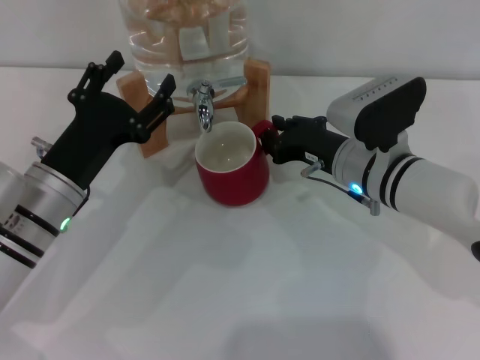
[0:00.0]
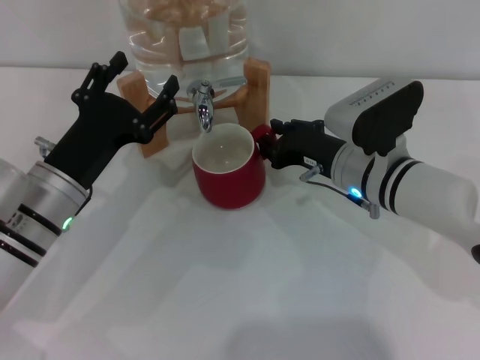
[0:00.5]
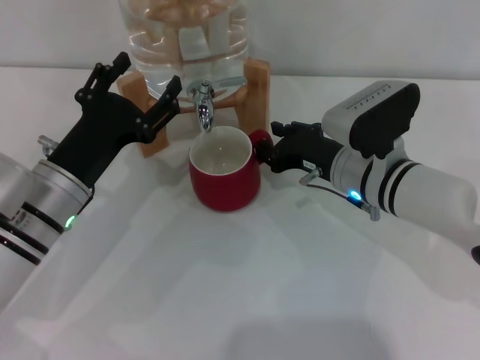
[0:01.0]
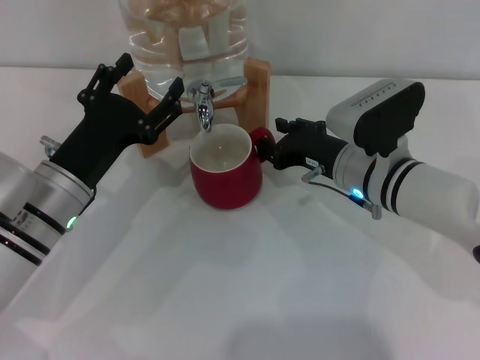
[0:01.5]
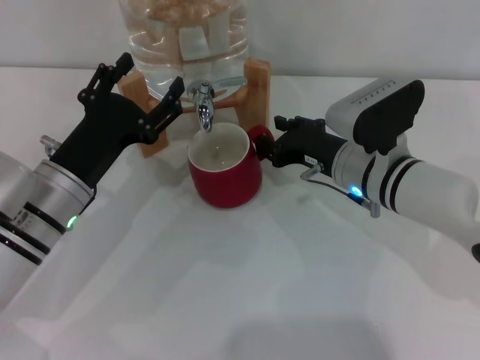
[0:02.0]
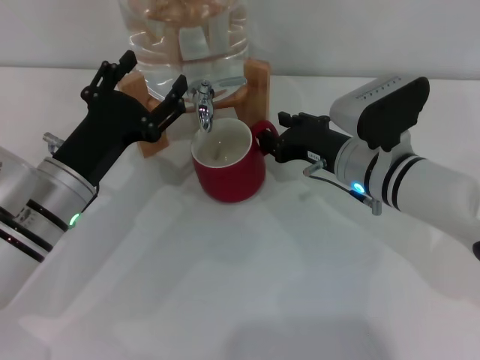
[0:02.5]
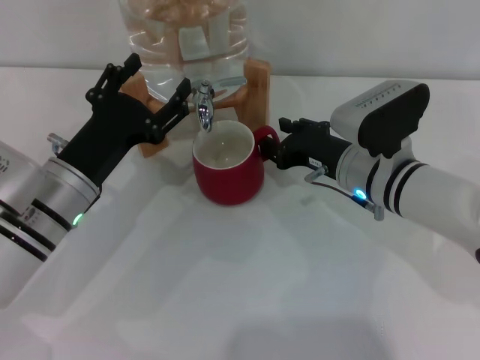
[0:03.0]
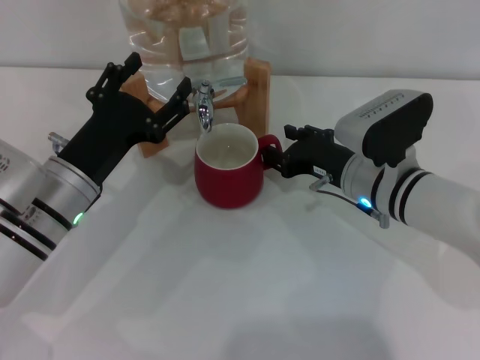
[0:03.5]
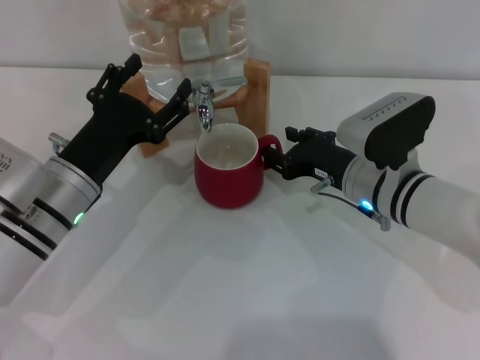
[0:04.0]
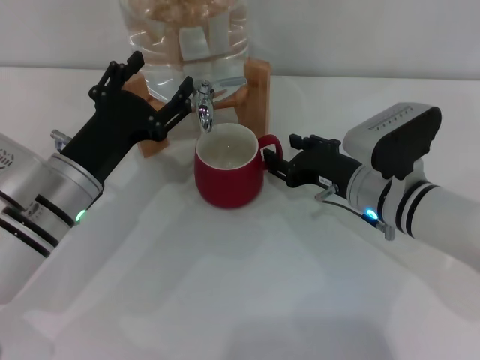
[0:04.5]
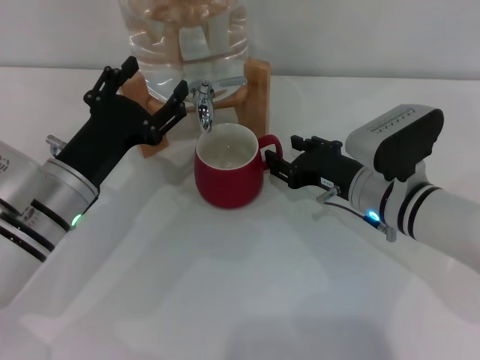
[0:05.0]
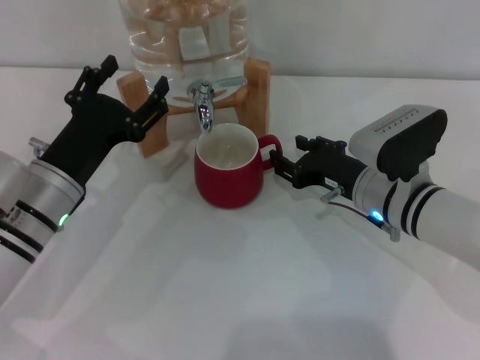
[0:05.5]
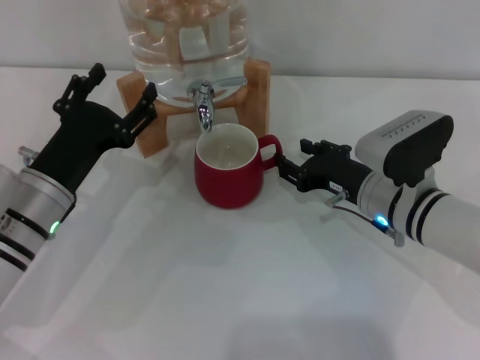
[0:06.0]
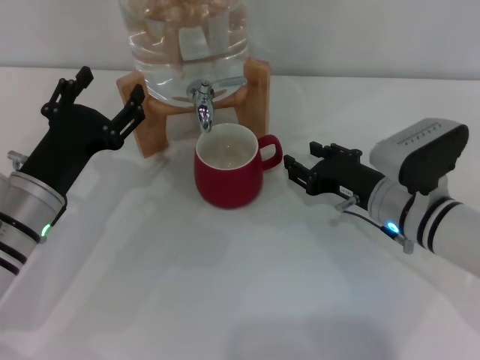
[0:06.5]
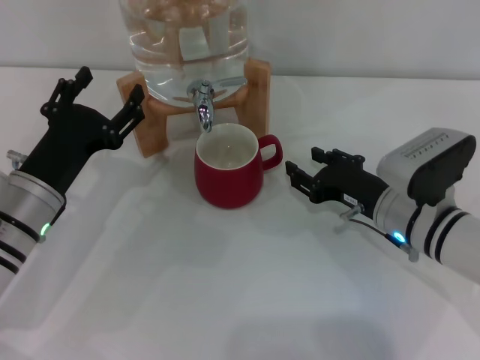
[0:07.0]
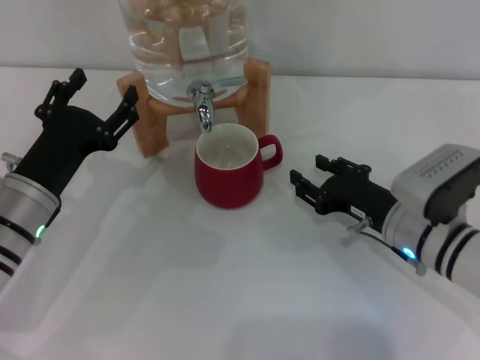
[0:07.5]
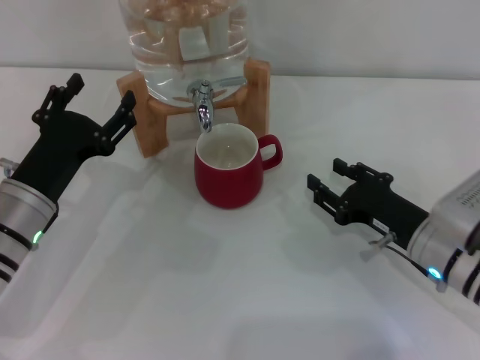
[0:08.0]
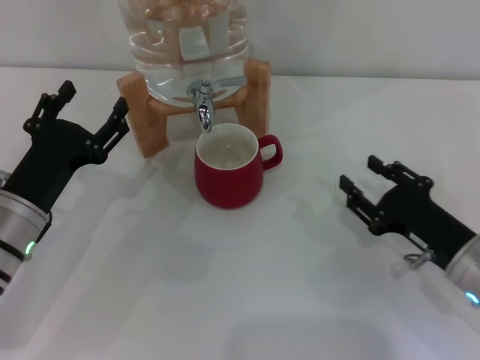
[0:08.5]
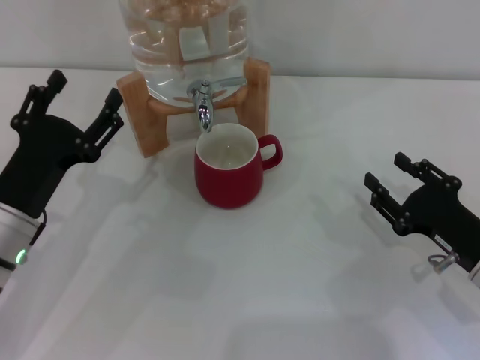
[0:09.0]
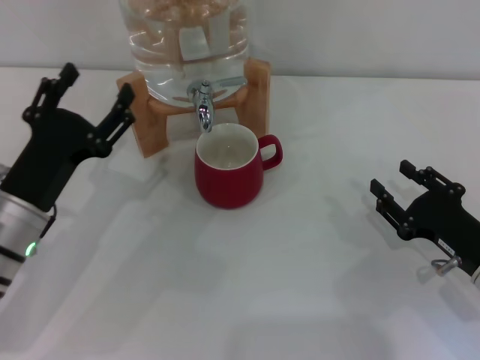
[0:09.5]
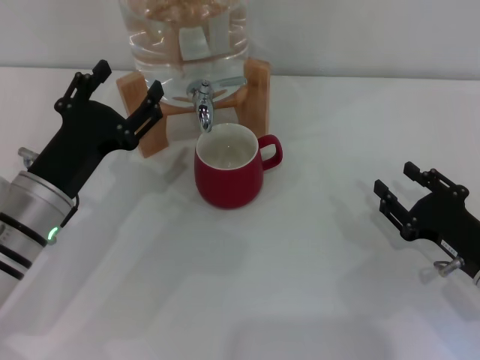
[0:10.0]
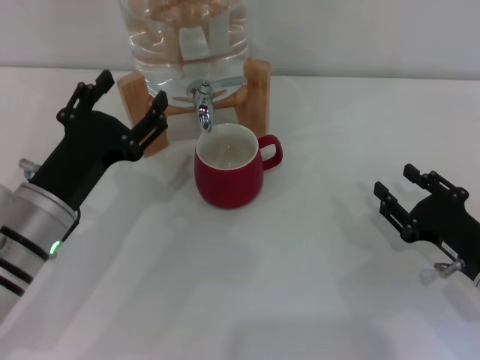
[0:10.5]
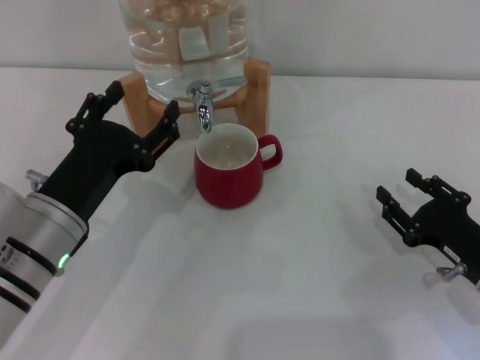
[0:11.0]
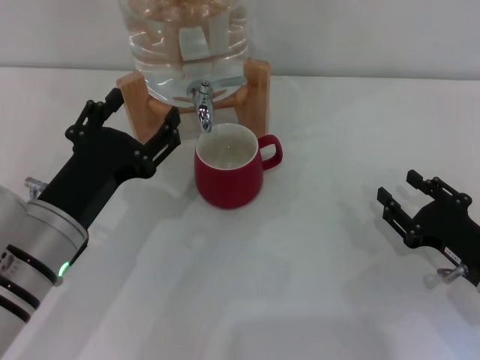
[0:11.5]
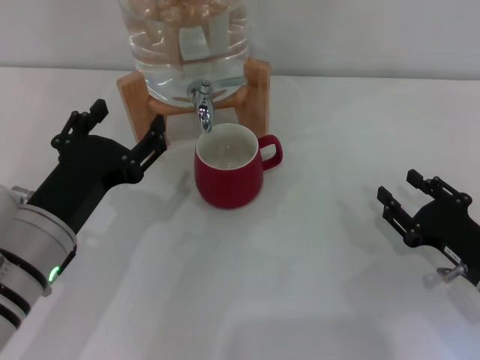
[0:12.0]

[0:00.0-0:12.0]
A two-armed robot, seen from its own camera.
Task of the whole recording: the right gripper pick up the red cup and place it horizontally under the faucet, the left gripper turn on the faucet to fill the cup, and then turn off the faucet.
Step, 0:00.0 to 0:07.0: Move the cup beneath the water dispenser nozzle with the right gripper.
0:00.0 to 0:02.0: Neither gripper changes place.
0:02.0 to 0:06.0: The grippers stay close to where they were, moving slightly.
0:06.0 to 0:08.0: The right gripper heads backward, covering roughly 5 cm.
0:08.0 to 0:10.0: The right gripper moves to the right, approximately 5 cm.
0:10.0 to 0:12.0: The left gripper goes some 5 cm backward.

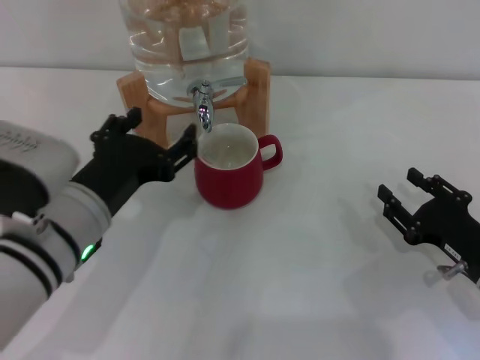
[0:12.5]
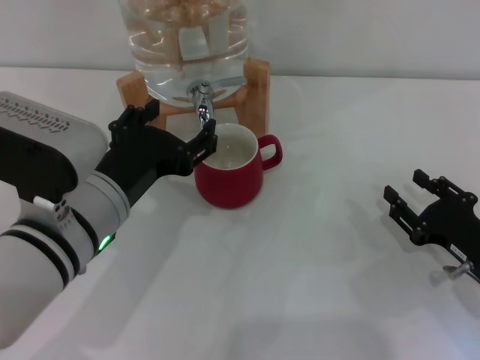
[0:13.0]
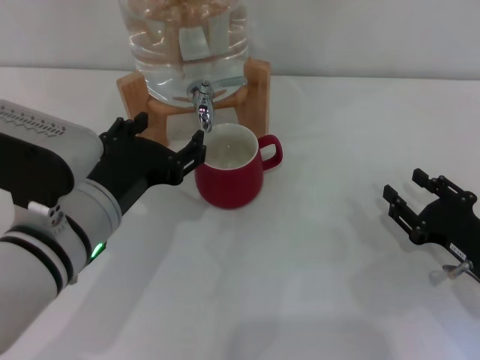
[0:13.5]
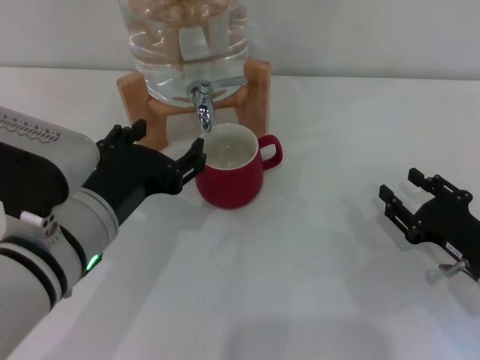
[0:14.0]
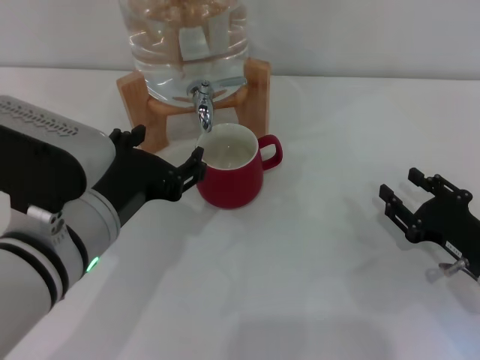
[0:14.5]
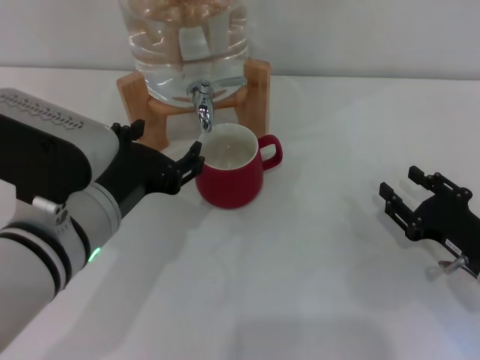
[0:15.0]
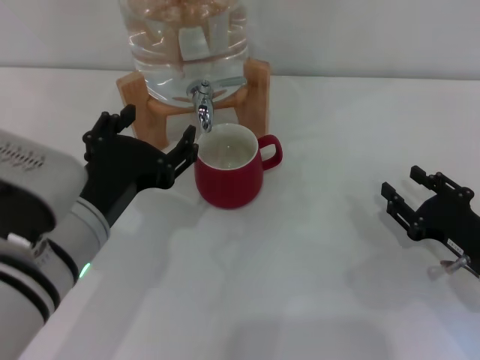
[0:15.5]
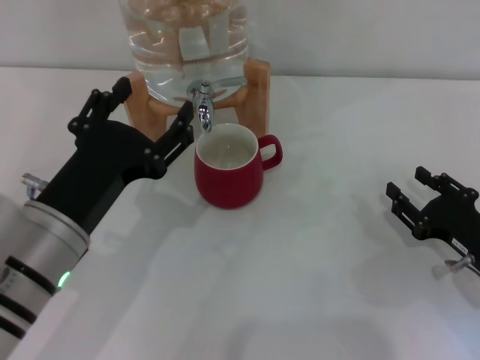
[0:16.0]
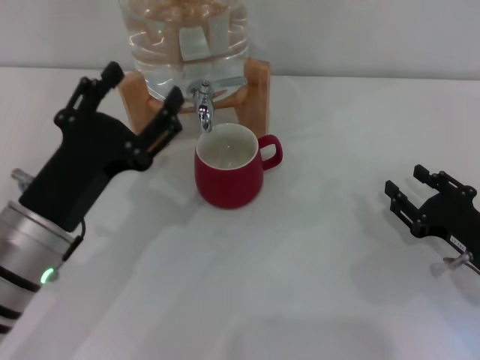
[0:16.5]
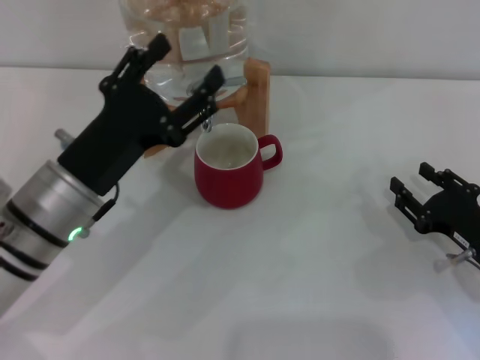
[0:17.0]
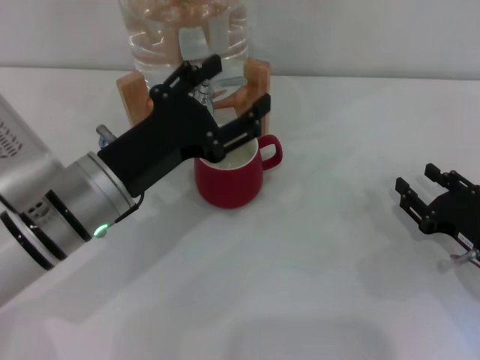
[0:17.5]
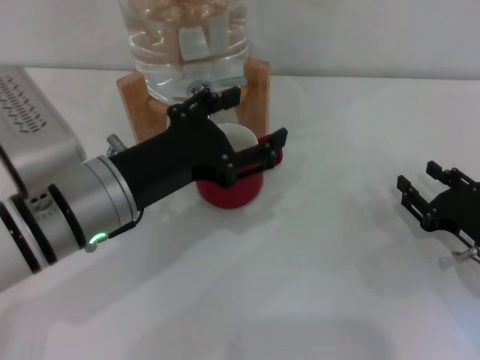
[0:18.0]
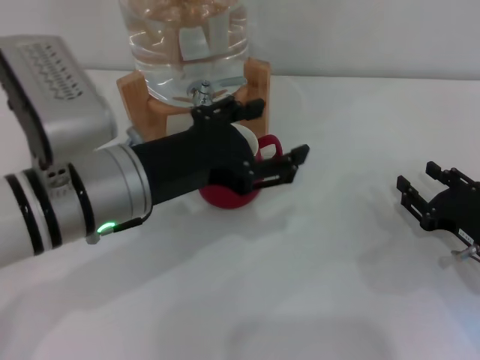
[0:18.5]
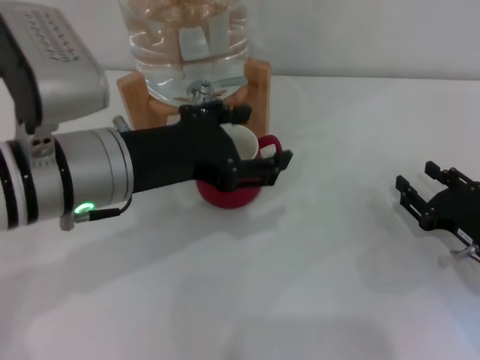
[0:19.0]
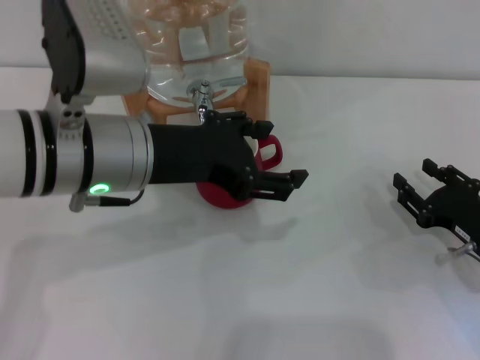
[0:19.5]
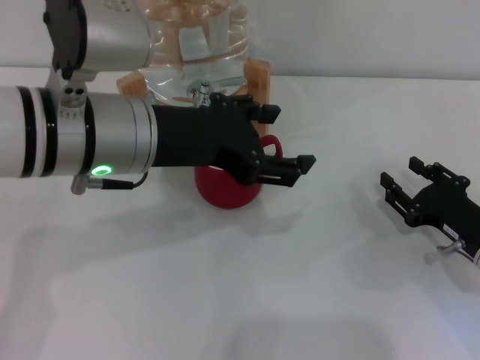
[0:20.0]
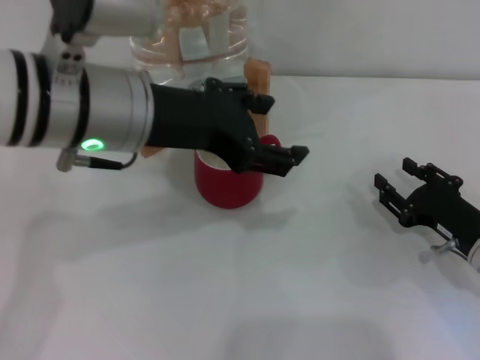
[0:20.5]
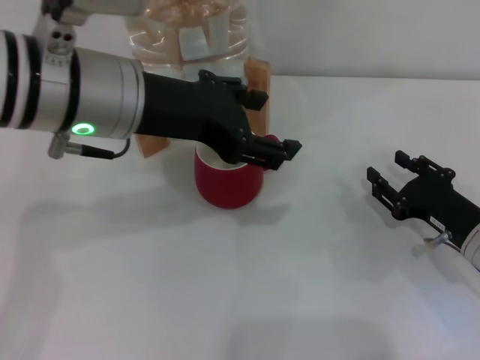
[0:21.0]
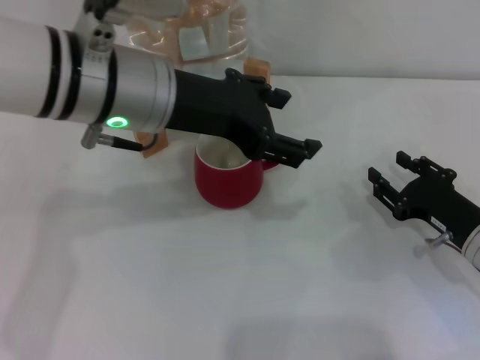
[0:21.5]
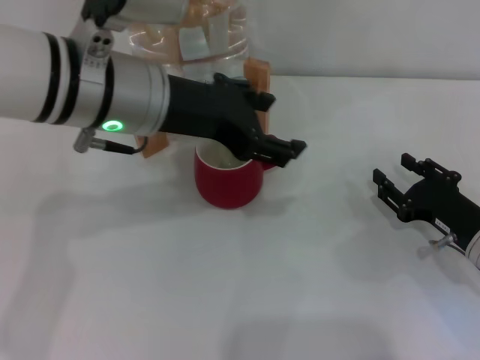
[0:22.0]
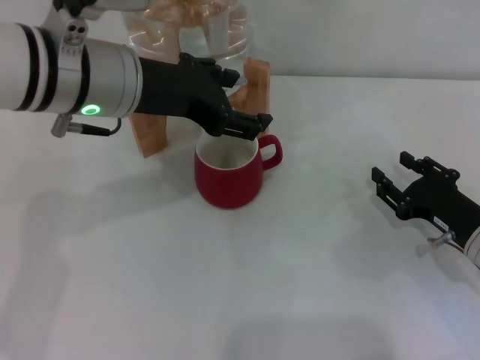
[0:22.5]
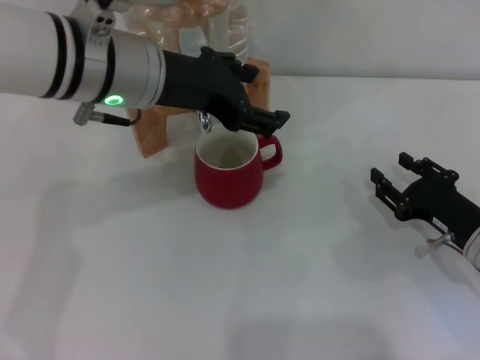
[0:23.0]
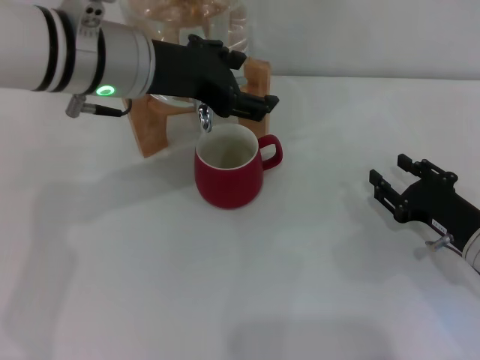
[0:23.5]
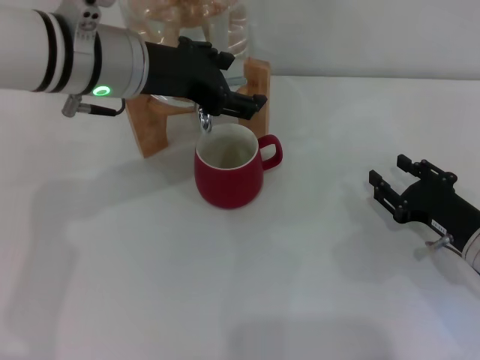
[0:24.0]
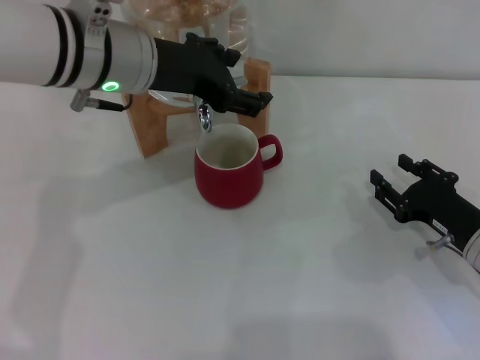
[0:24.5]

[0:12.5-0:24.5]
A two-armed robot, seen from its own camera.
Task of the whole recording: the right gripper pick up the red cup and place it horizontally under the faucet, the left gripper turn on the faucet to fill the cup, and then turn off the faucet.
0:12.5 to 0:14.5: The grippers stay close to where they were, moving slightly.
0:14.5 to 0:16.5: The left gripper ends up roughly 5 cm from where it was.
0:16.5 to 0:18.5: The left gripper heads upward and to the right, covering roughly 10 cm.
0:18.5 to 0:20.5: The left gripper goes about 5 cm upward.
0:20.5 to 0:22.5: The grippers stay close to where they were, moving slightly.
0:22.5 to 0:24.5: The grippers stay close to where they were, moving slightly.

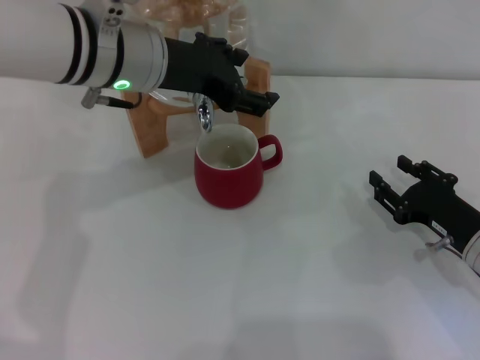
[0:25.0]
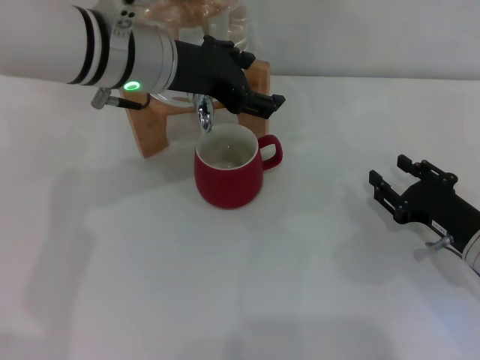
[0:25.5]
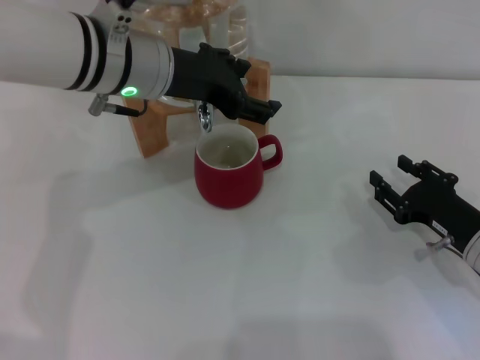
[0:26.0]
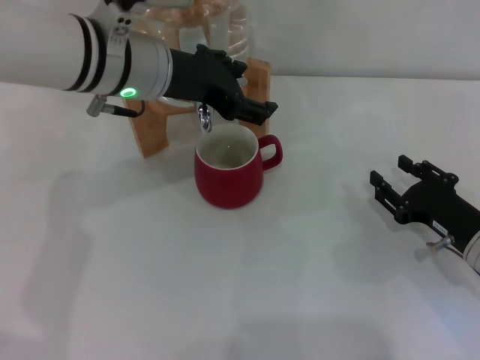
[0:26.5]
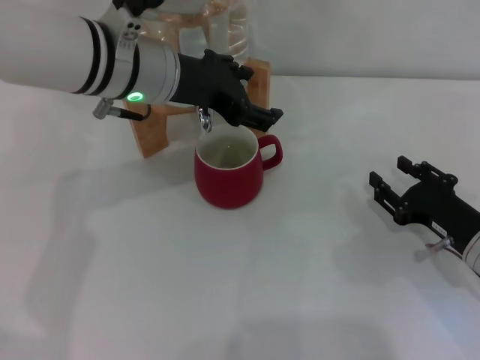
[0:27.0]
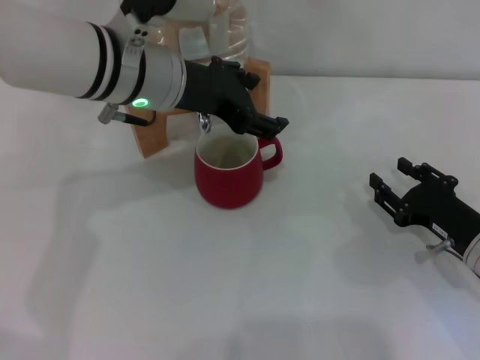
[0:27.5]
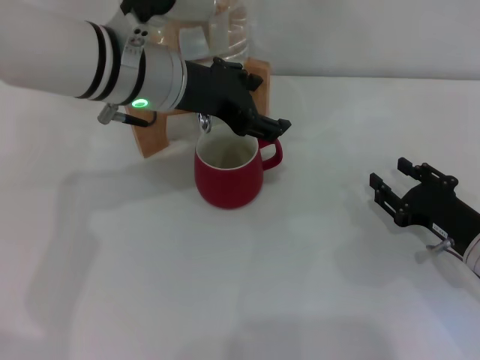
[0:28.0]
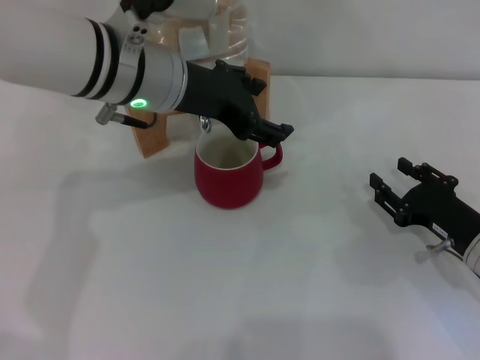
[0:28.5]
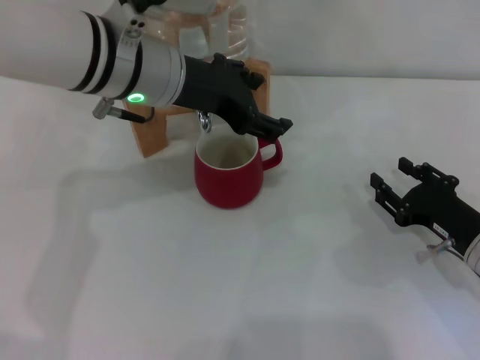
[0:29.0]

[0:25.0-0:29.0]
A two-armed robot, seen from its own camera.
Task of the whole recording: the right gripper pick up the red cup and place it horizontally under the faucet, the left gripper turn on the faucet to fill the cup, and then turn off the faucet.
0:25.0 to 0:29.0: The grippers move only a little.
